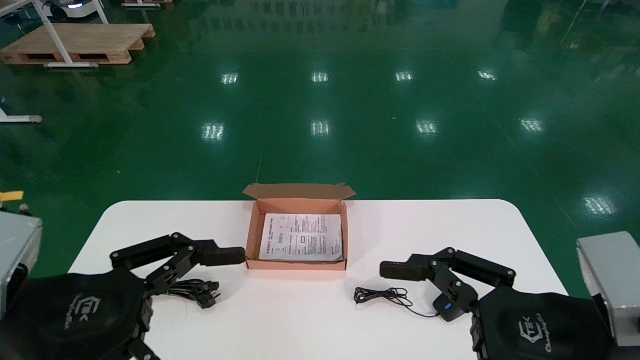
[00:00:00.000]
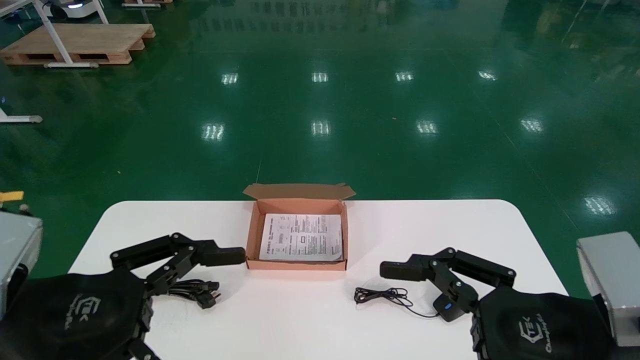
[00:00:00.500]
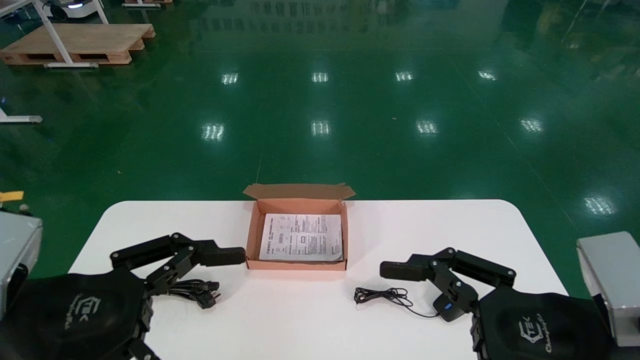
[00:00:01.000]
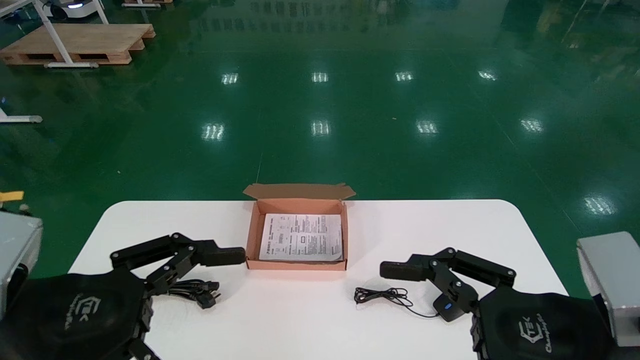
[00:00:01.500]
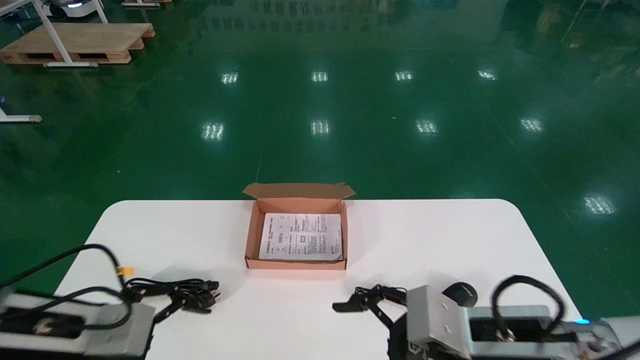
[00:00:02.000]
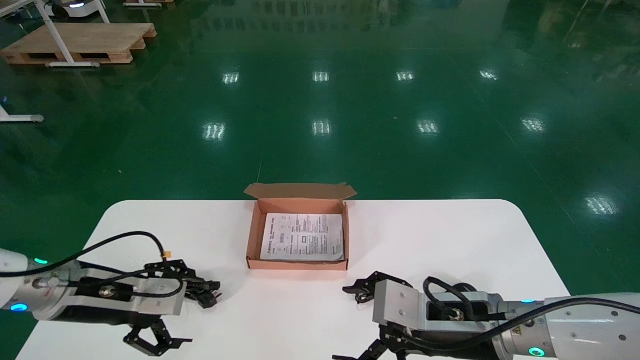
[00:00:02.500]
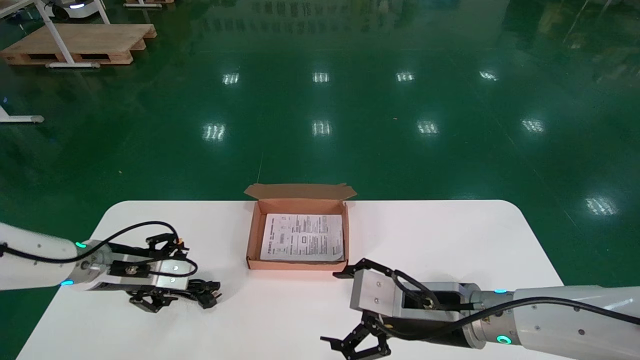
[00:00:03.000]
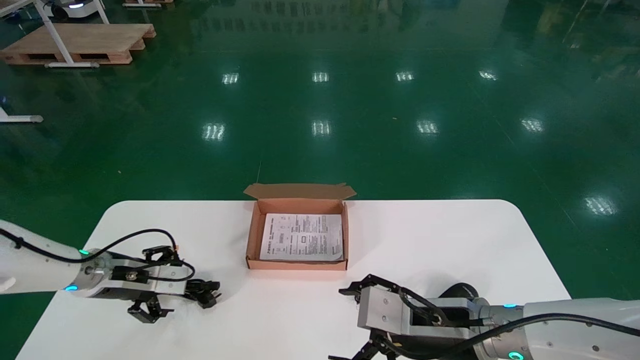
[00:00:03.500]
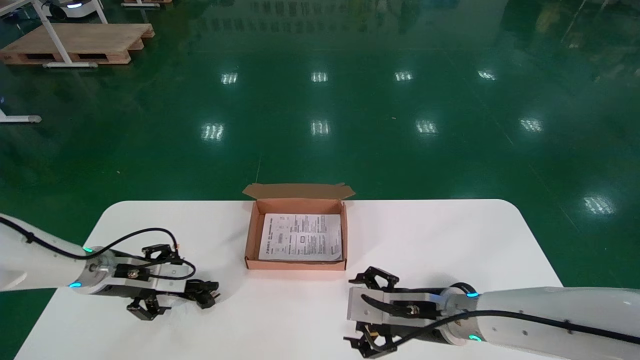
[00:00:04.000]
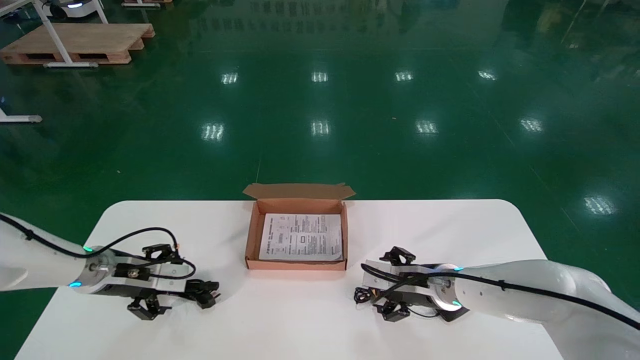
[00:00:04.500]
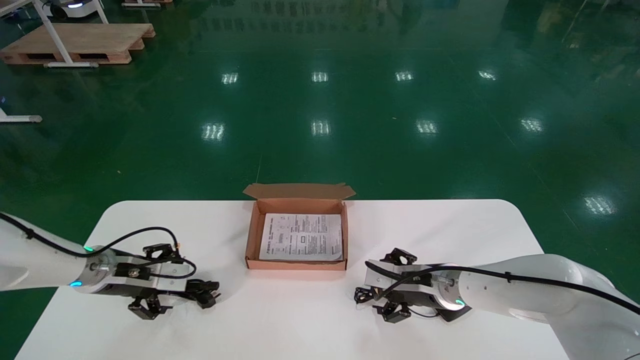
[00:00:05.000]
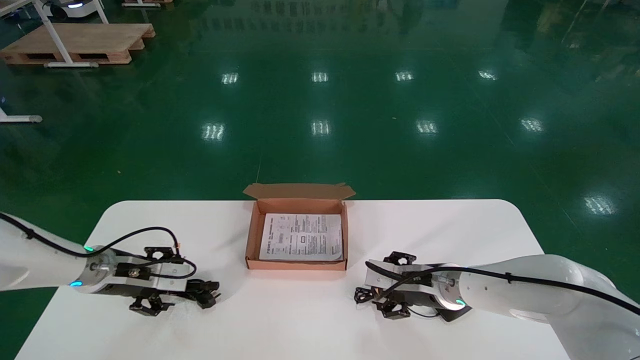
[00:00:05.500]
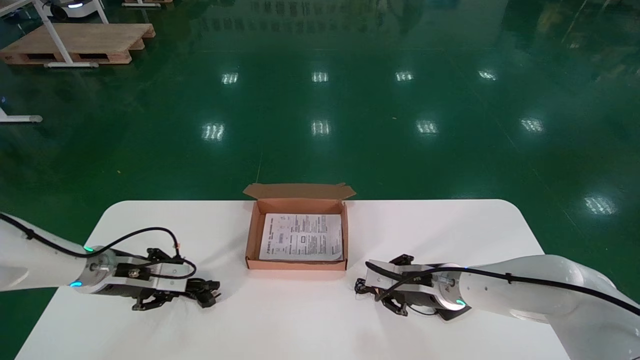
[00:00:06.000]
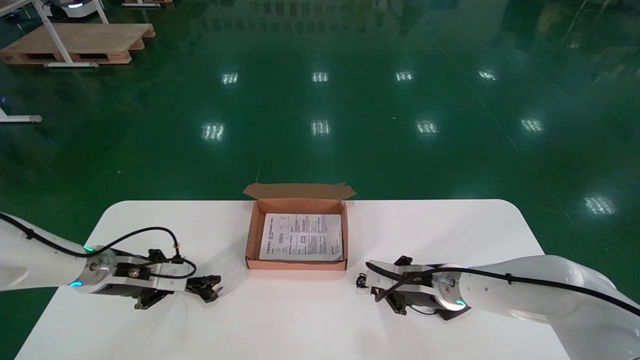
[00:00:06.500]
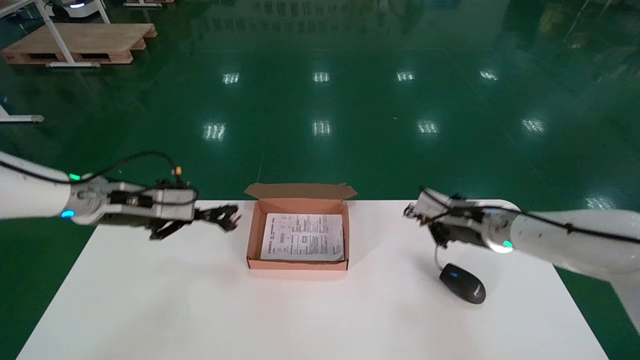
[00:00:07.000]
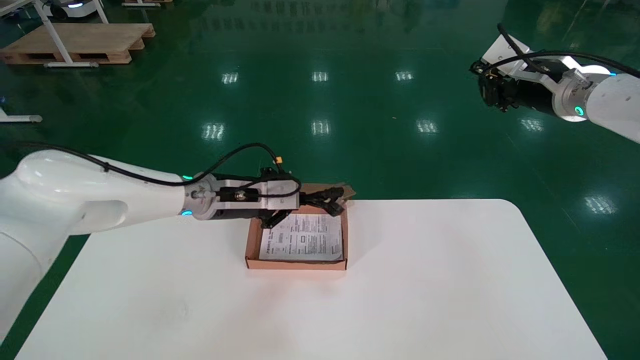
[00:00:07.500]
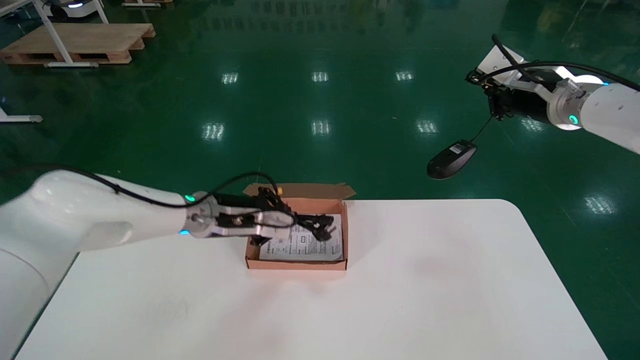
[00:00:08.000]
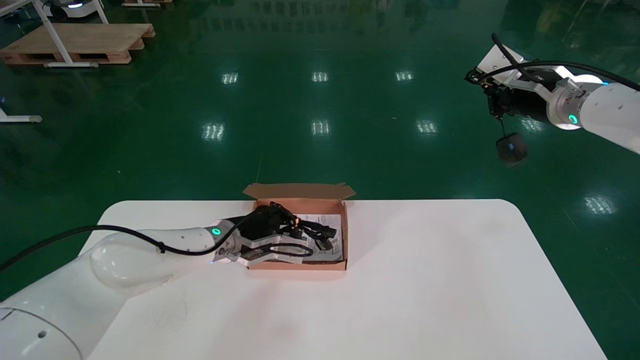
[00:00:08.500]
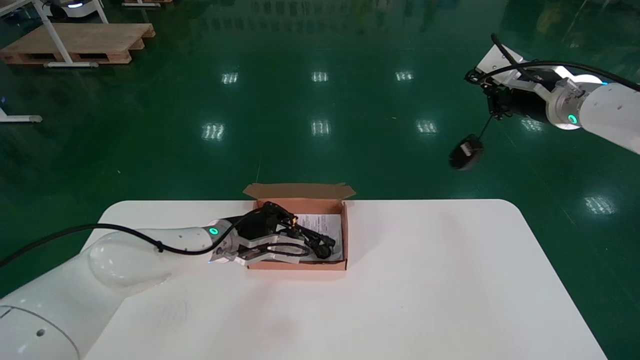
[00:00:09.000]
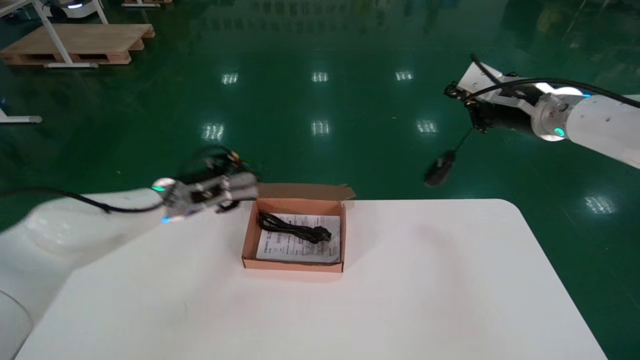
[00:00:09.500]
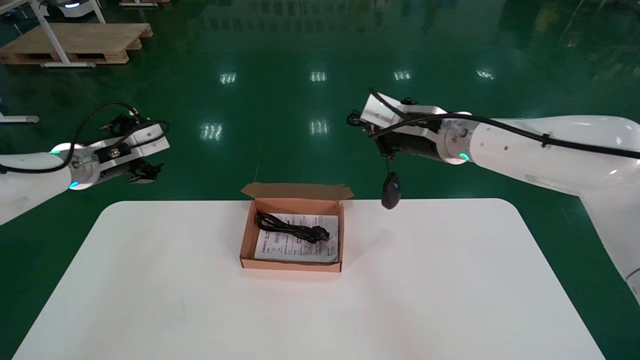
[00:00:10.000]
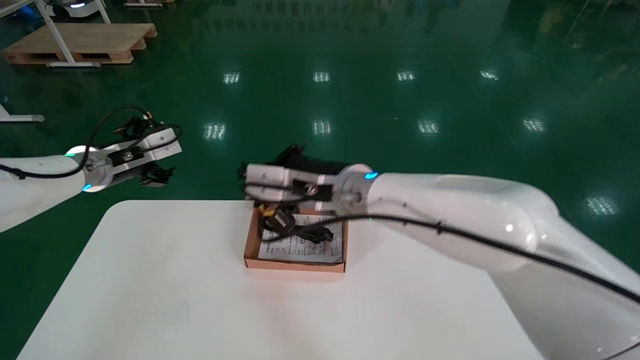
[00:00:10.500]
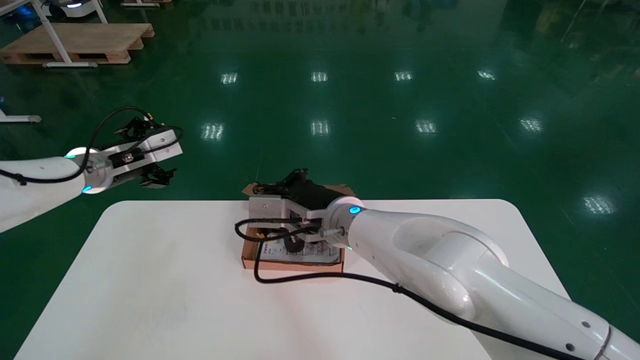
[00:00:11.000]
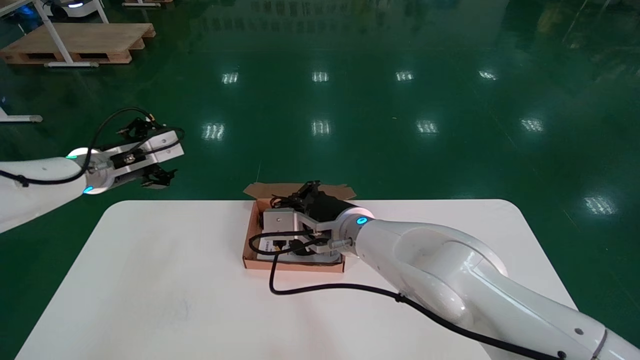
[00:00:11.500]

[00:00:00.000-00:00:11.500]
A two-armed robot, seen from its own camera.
Step, 00:00:02.000 to 00:00:06.000: Simultaneously pick up the mouse and power cord from the accessory packaging area.
00:00:00.000 to 00:00:02.000: The left gripper is displaced forward and downward by some 10 cm. The right gripper is displaced forward, downward and to the left by about 10 cm.
00:00:02.000 to 00:00:04.000: Both grippers travel together forward, roughly 15 cm.
00:00:04.000 to 00:00:06.000: The left gripper closes up, while the right gripper moves forward, about 5 cm, and closes up.
00:00:06.000 to 00:00:07.500: The right gripper moves upward and to the right, some 30 cm, and closes its fingers; the left gripper is displaced to the right and upward by approximately 20 cm, and closes its fingers.
00:00:07.500 to 00:00:09.500: The left gripper is displaced to the left by about 10 cm, and opens its fingers.
00:00:09.500 to 00:00:11.500: The left gripper goes approximately 10 cm to the left, and opens; the right gripper travels to the left and downward by approximately 30 cm.

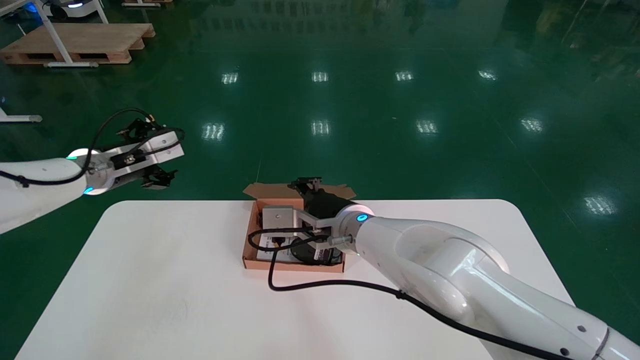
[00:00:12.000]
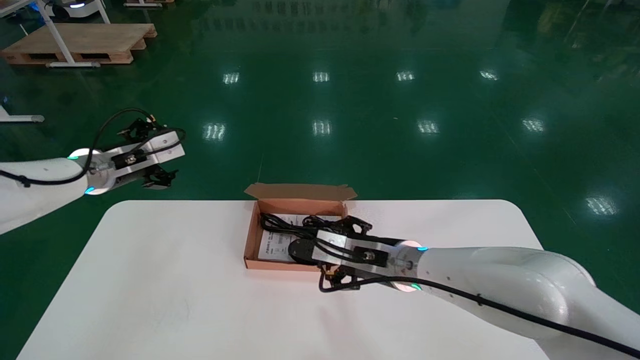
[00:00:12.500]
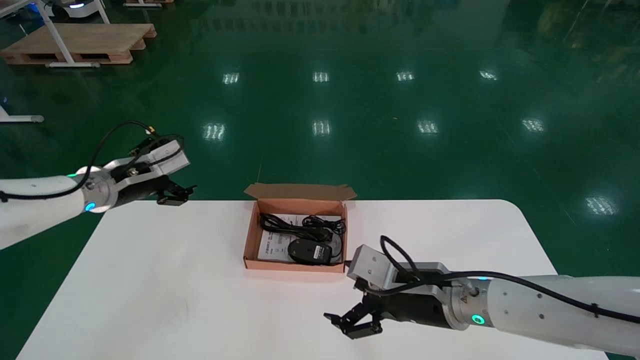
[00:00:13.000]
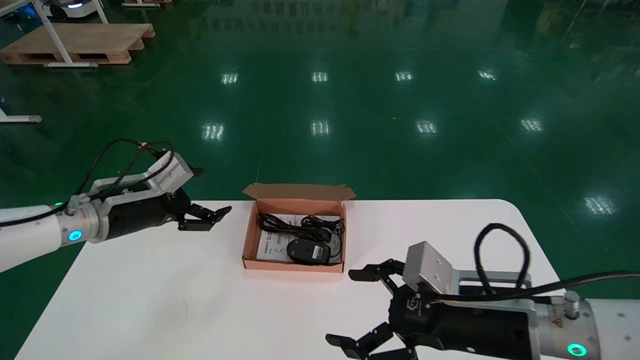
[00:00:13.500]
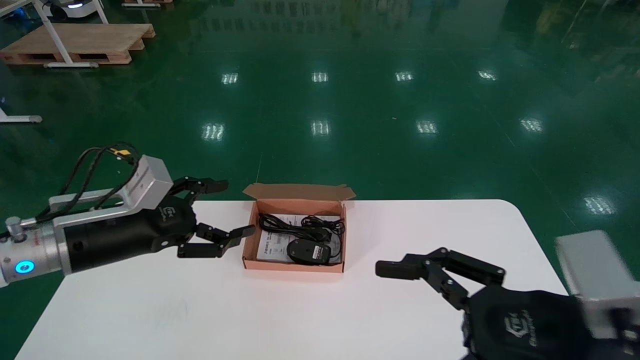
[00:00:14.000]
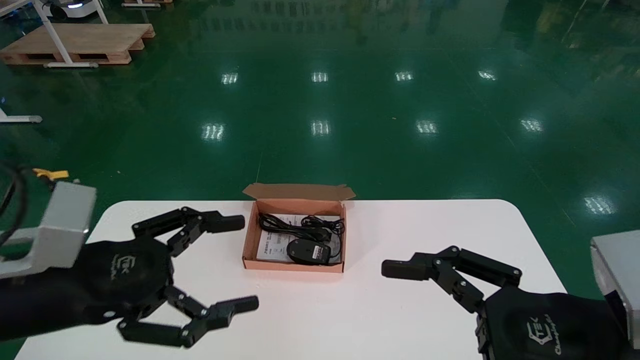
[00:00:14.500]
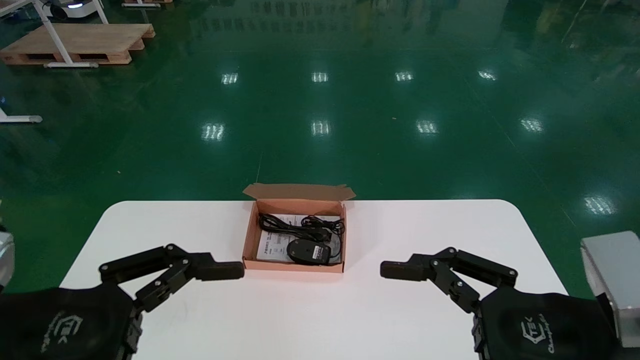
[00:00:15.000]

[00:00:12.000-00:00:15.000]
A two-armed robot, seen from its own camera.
00:00:12.000 to 00:00:13.500: The right gripper is displaced to the right and backward by roughly 20 cm, and opens. The left gripper travels backward and downward by about 10 cm.
00:00:13.500 to 00:00:15.000: The right gripper moves backward and upward, roughly 10 cm. The left gripper travels backward by some 25 cm.
